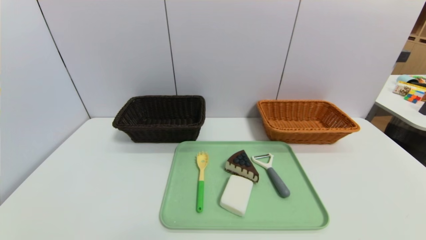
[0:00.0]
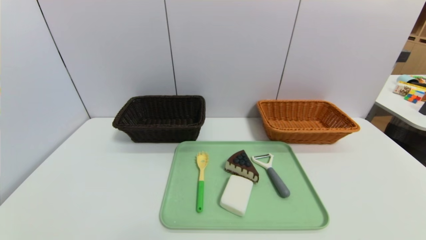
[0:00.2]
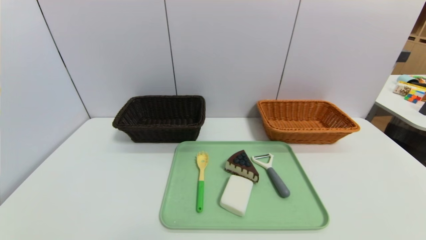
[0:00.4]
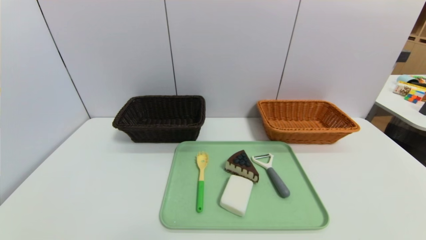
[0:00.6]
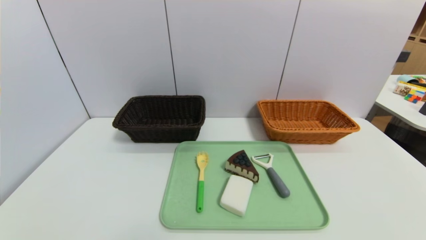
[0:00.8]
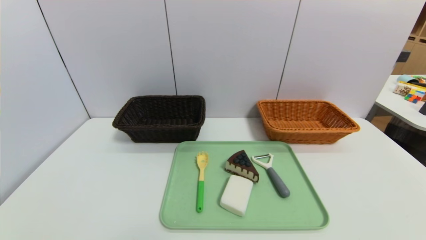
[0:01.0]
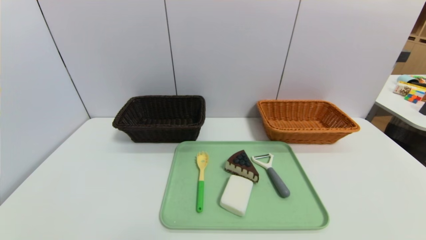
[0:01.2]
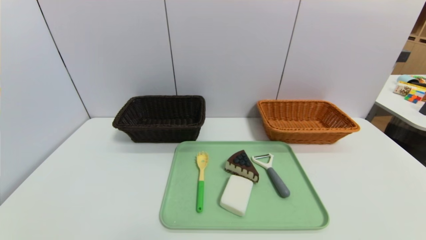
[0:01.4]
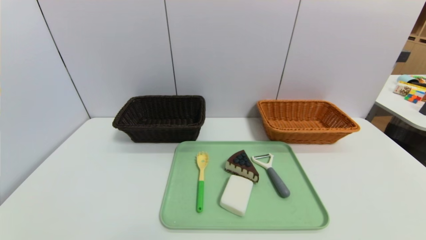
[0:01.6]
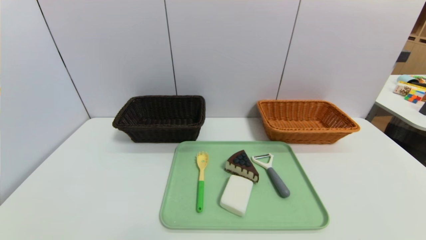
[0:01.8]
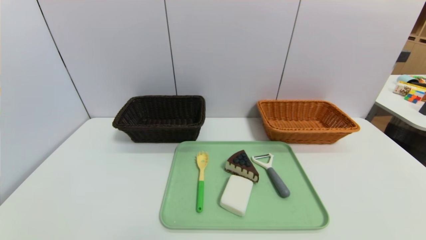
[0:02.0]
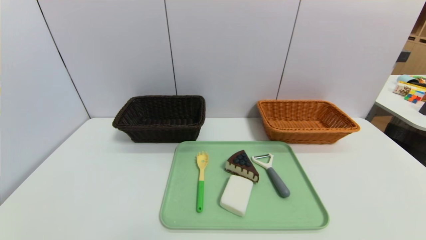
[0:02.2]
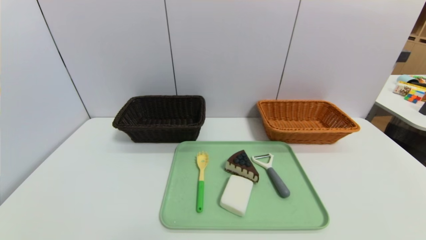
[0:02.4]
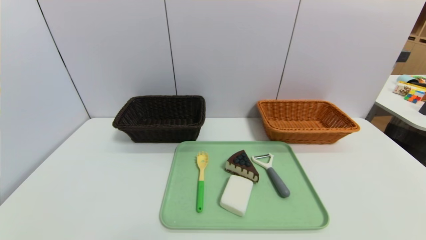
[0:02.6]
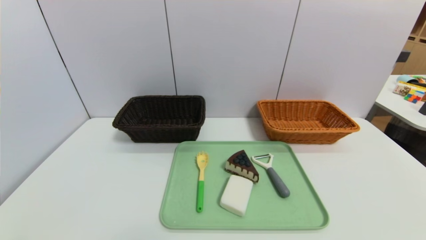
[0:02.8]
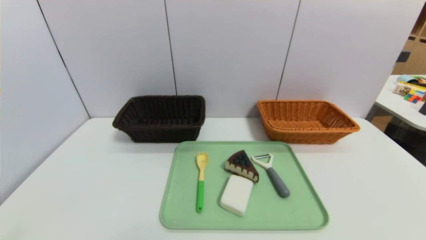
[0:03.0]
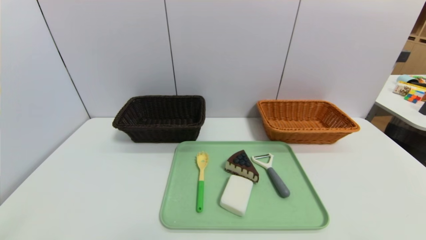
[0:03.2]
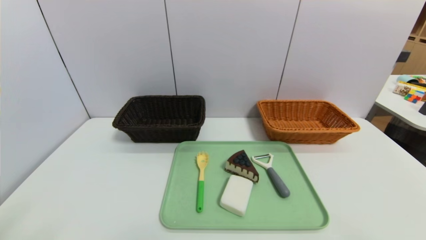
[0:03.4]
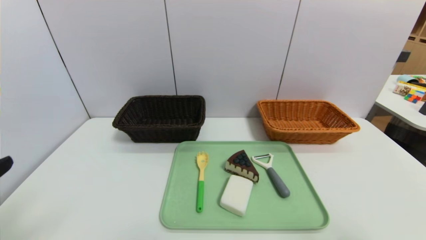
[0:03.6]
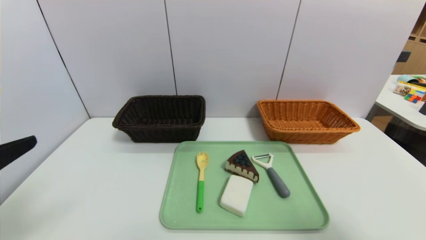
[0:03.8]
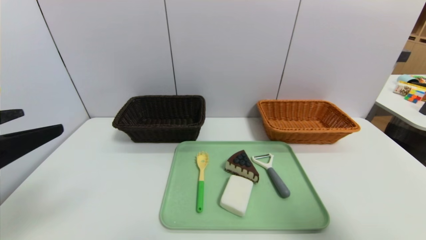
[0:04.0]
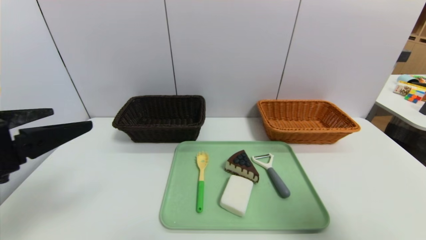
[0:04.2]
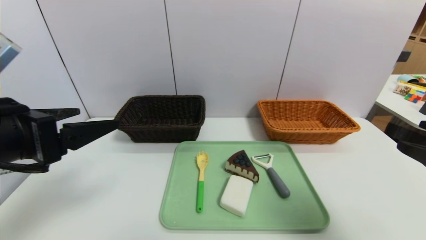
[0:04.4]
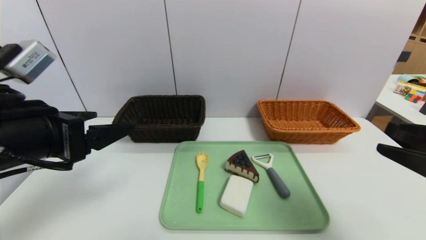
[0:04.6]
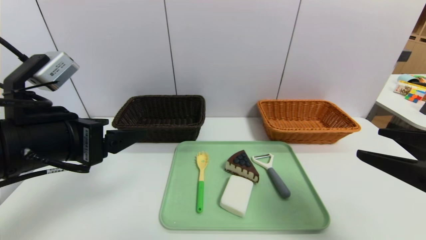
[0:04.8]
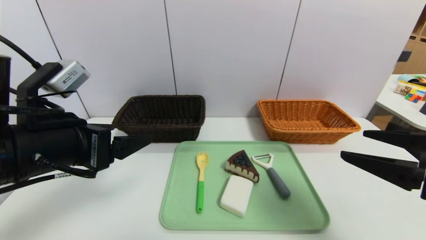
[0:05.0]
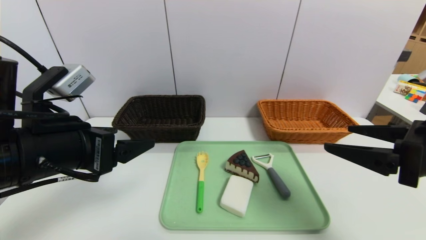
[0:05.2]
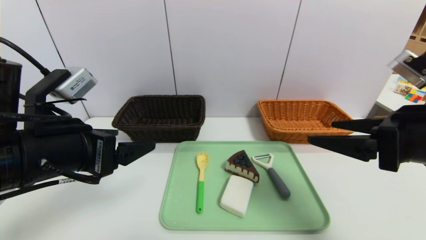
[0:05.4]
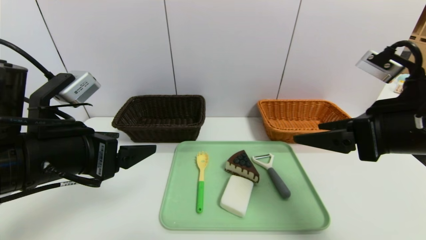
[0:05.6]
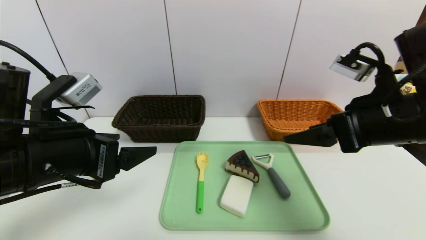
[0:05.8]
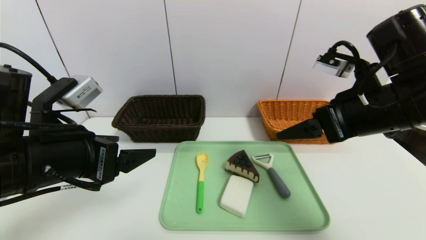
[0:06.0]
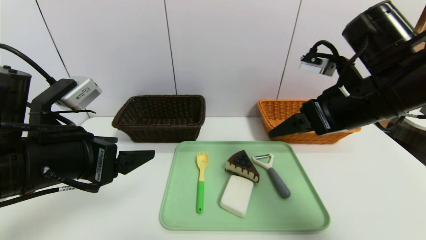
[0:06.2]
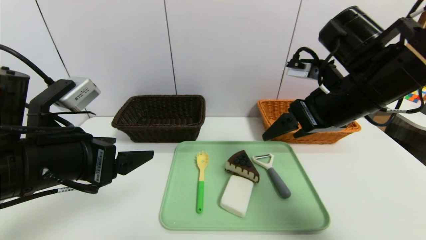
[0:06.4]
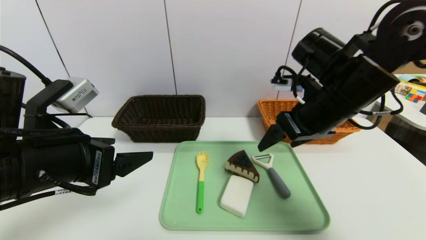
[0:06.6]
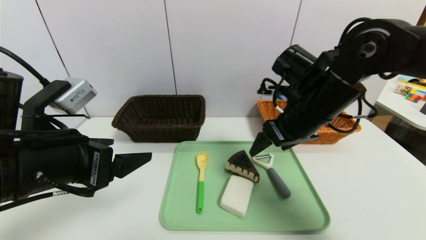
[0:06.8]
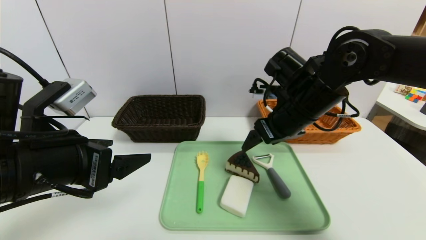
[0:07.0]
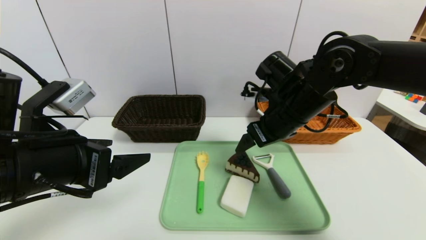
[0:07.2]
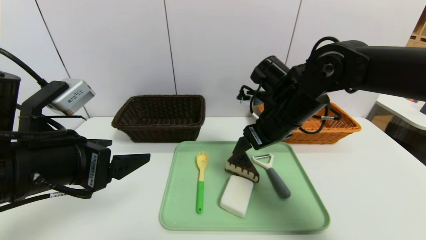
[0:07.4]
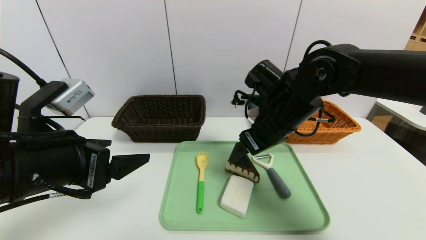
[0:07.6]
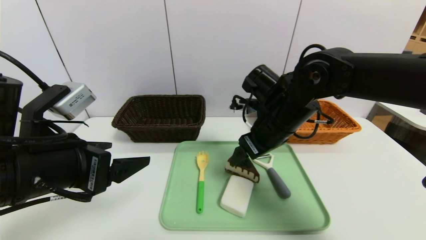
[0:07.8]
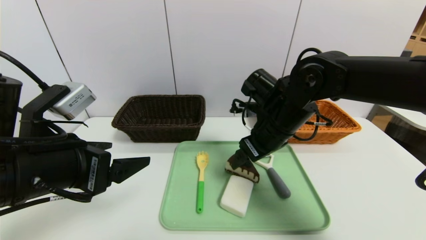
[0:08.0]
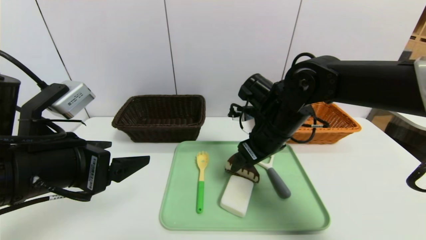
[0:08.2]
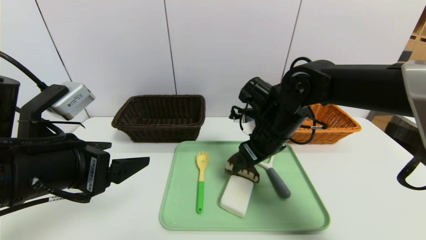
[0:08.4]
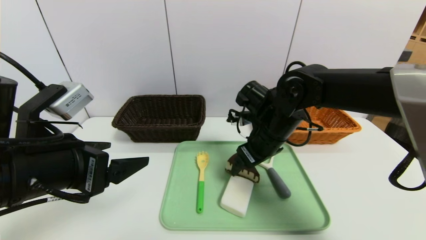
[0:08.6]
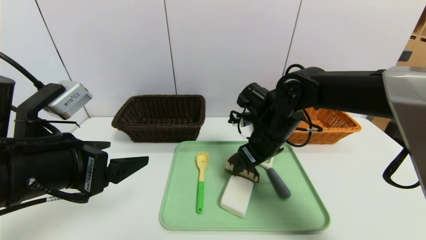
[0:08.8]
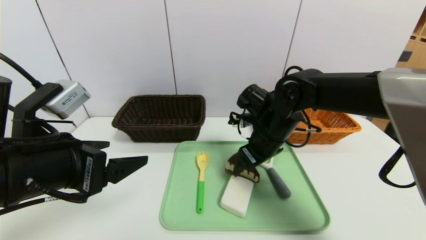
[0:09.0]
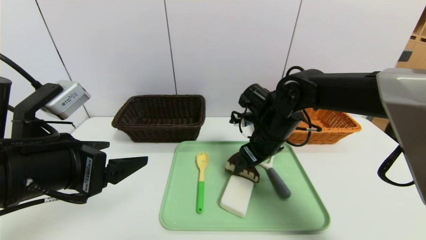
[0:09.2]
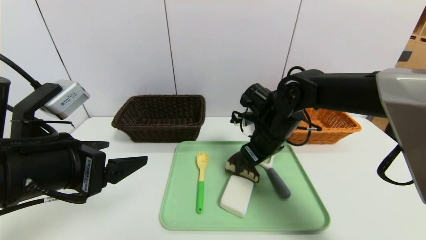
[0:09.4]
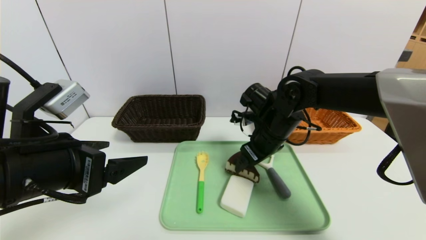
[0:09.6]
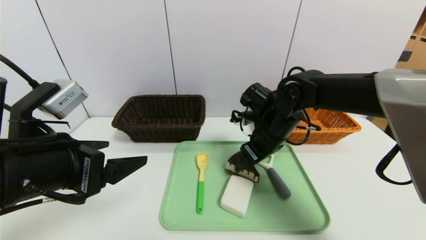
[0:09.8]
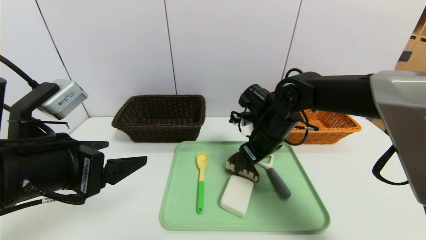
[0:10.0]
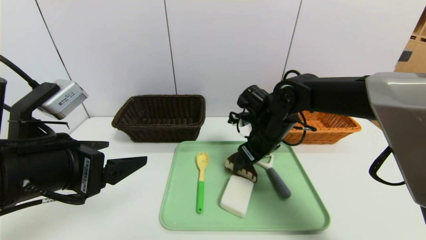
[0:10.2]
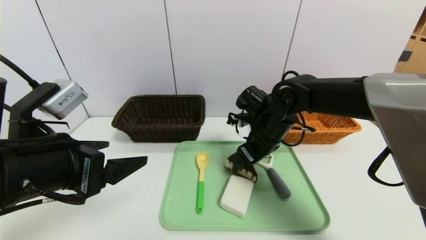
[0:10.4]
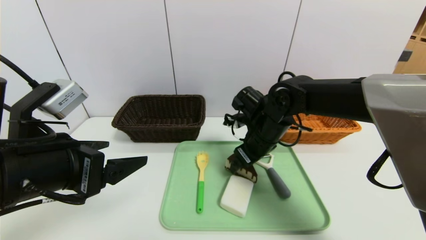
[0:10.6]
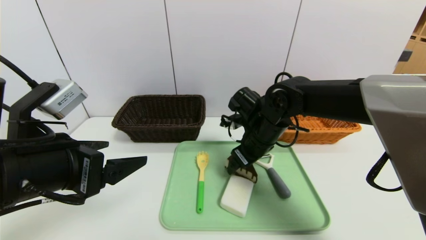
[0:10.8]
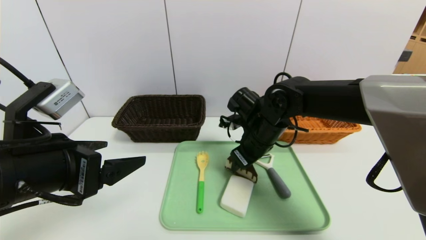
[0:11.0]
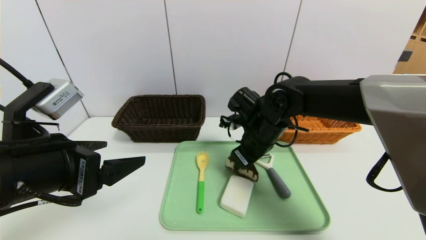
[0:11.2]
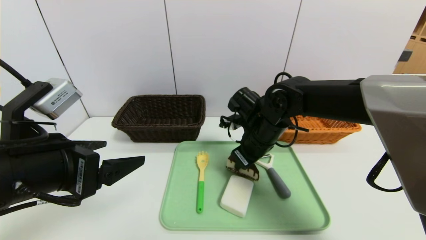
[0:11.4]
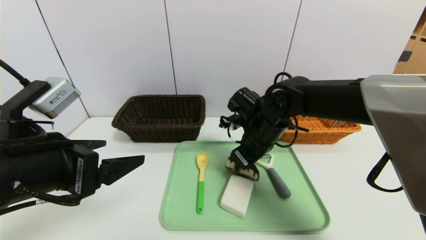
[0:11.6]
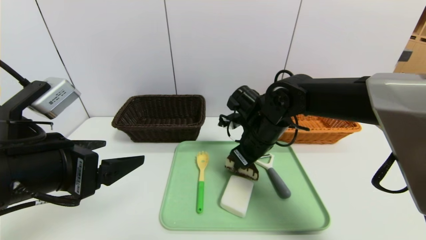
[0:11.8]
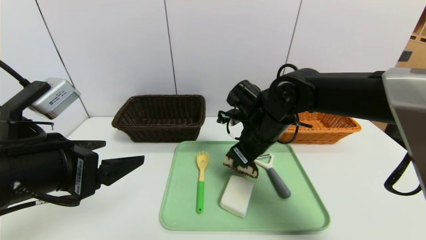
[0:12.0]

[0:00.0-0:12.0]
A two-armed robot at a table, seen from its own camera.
Task of the whole recording: place the food in the right basket with the right gripper, and place the non food items in the left basket with the left gripper.
0:00.0 to 0:01.6: Both grippers stay put.
0:03.0 to 0:04.4: Both grippers move forward and upward, approximately 20 cm.
0:04.4 to 0:06.0: The right gripper goes approximately 15 cm forward and to the left. The left gripper shifts by about 5 cm.
0:06.0 to 0:07.6: The right gripper travels to the left, forward and downward by about 15 cm.
0:07.6 to 0:09.0: The right gripper ends up approximately 5 cm from where it was.
0:09.0 to 0:10.4: There are only small adjustments of the grippers.
0:10.4 to 0:12.0: The right gripper closes up.

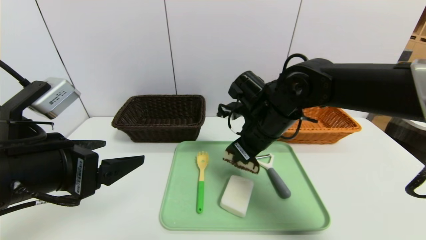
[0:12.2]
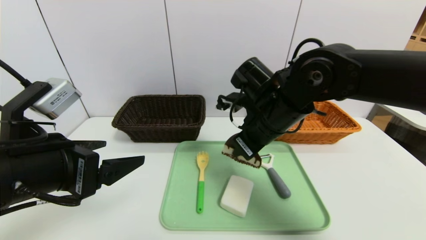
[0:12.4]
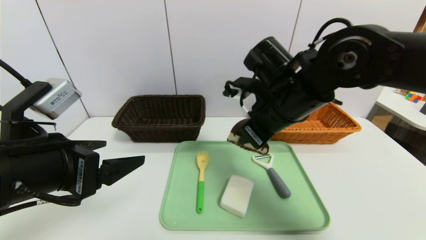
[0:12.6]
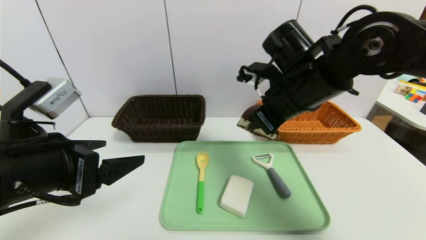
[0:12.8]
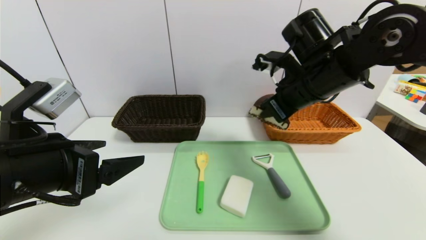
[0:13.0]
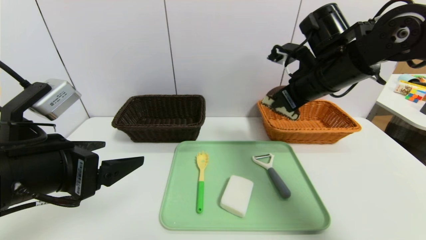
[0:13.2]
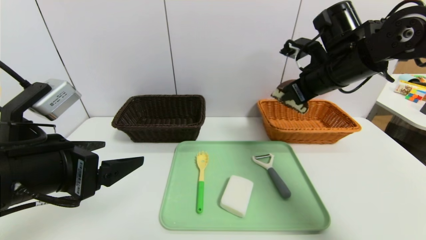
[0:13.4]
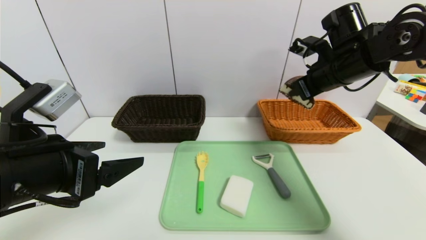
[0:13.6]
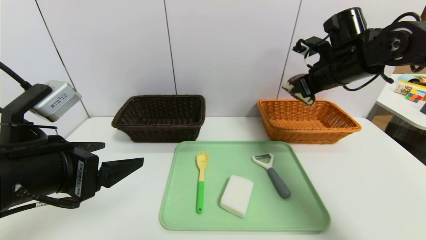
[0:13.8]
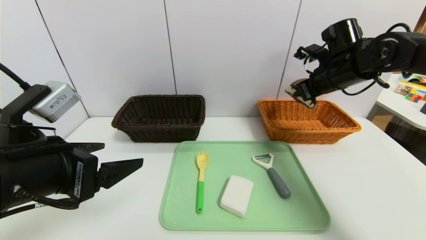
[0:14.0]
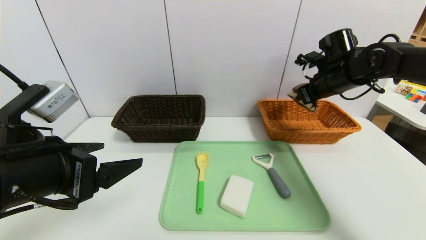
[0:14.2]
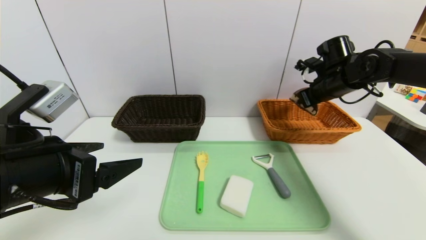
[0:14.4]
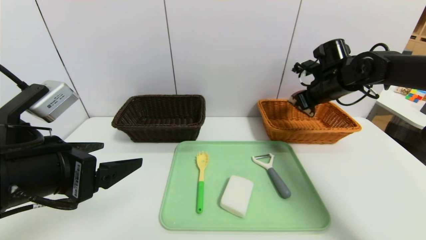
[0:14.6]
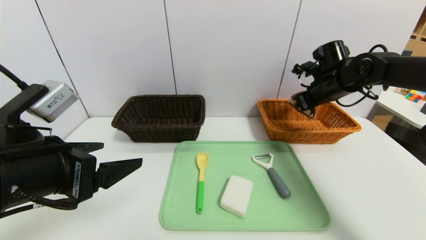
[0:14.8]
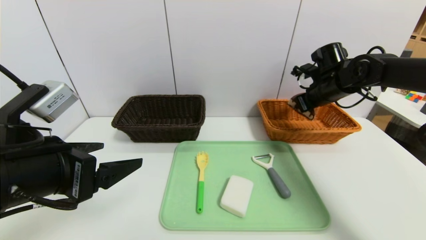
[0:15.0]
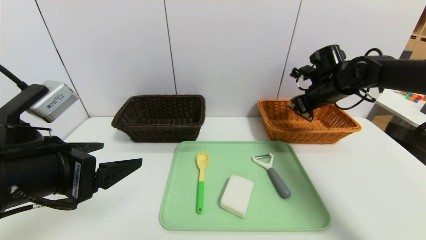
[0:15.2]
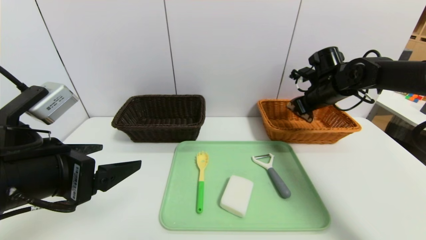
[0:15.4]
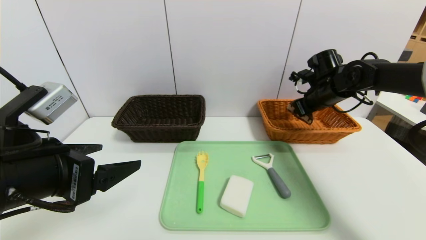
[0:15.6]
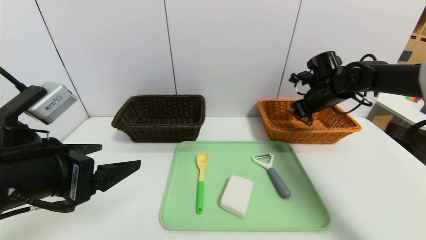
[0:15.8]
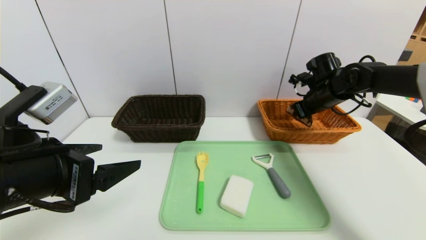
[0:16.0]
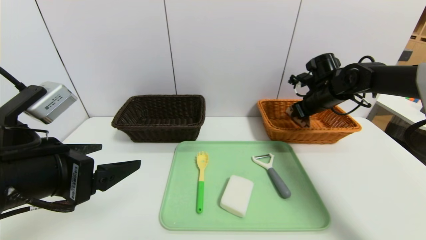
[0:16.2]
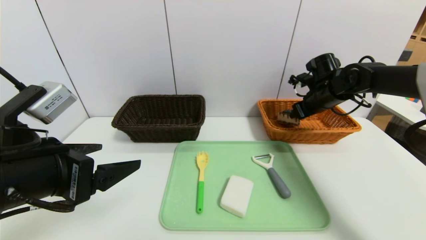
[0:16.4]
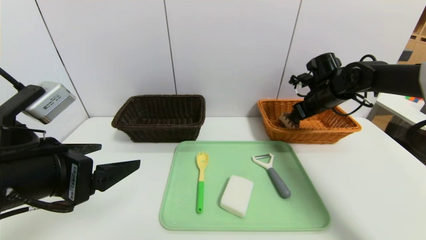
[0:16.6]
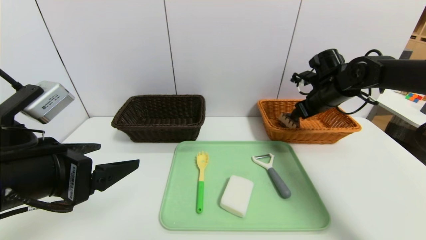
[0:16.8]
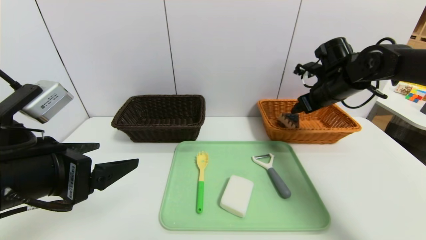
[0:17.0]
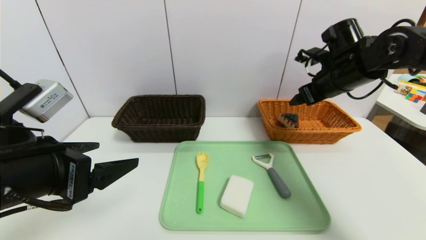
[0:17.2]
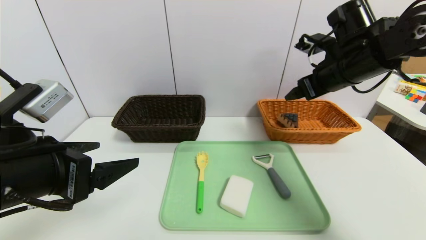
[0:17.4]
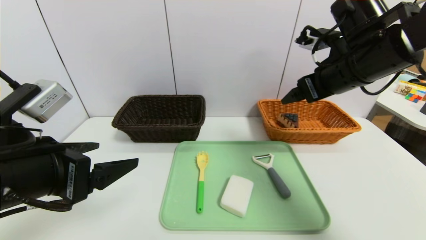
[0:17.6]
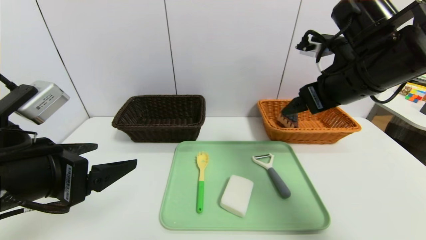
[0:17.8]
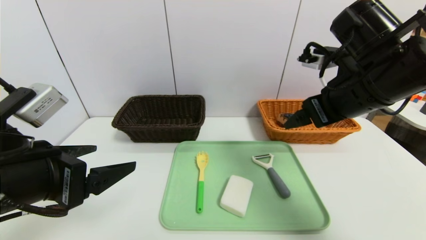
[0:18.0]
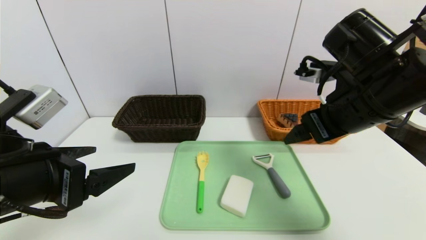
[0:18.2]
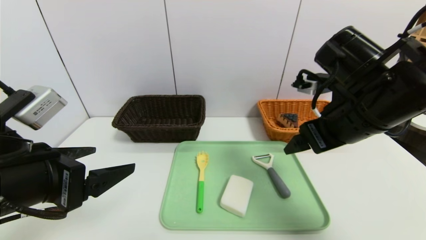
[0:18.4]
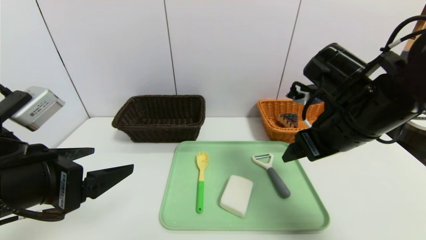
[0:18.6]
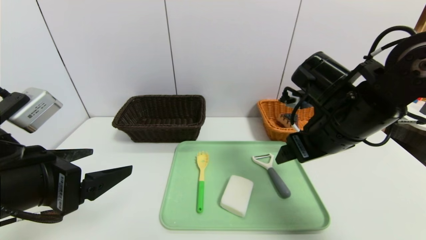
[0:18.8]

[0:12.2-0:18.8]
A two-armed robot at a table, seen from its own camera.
Task of the whole recording: place the food in the right basket with the right gripper, and place the non food items in the left basket with the left gripper.
Step, 0:12.2 to 0:16.6: Grasp the triangle cake and put it in the right basket.
0:12.2 to 0:13.8: The right gripper shifts some 20 cm to the right, upward and forward.
0:13.8 to 0:15.4: The right gripper goes approximately 10 cm downward and forward.
0:15.4 to 0:17.2: The right gripper moves upward and backward, some 10 cm, and opens its fingers.
0:17.2 to 0:18.8: The right gripper is displaced backward and to the left by some 15 cm.
